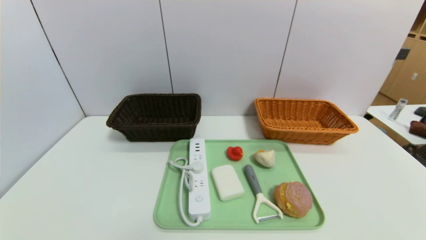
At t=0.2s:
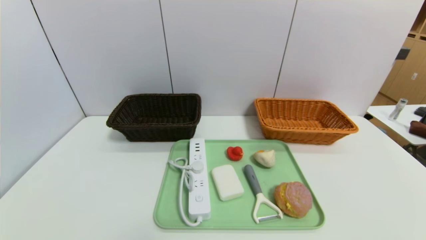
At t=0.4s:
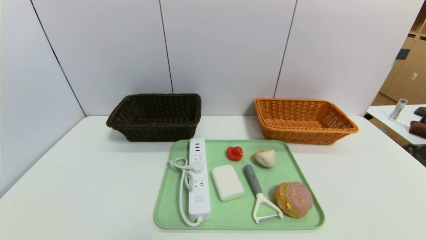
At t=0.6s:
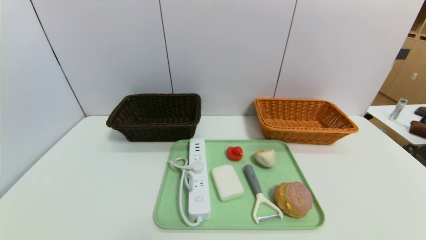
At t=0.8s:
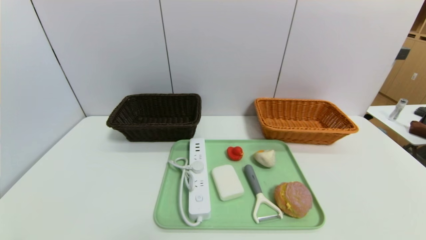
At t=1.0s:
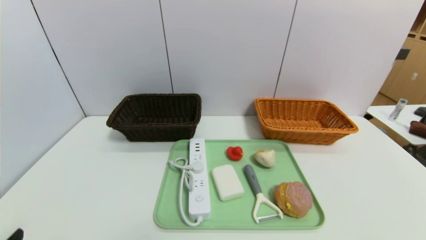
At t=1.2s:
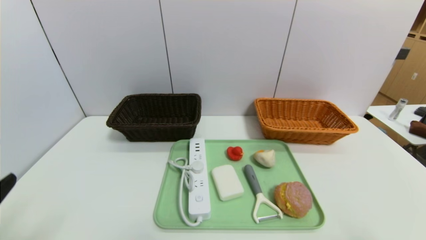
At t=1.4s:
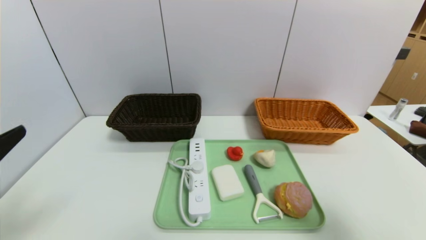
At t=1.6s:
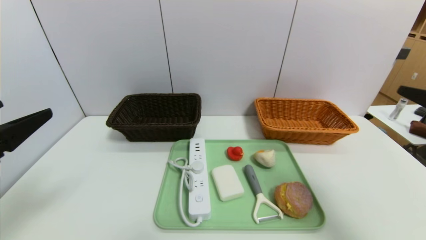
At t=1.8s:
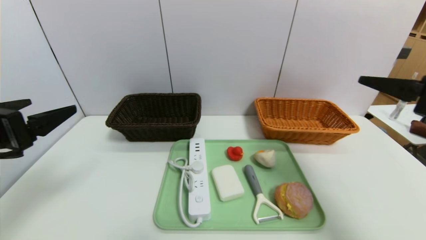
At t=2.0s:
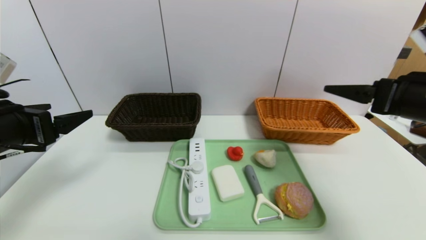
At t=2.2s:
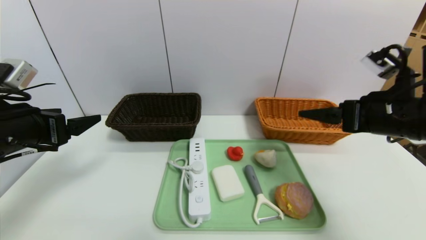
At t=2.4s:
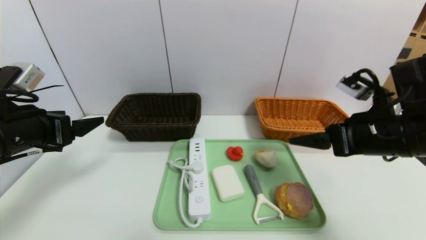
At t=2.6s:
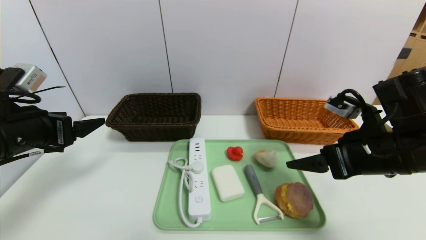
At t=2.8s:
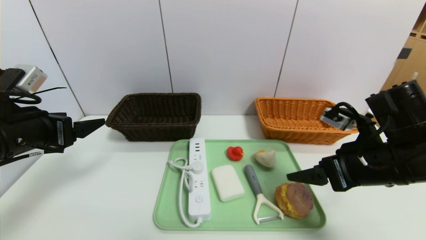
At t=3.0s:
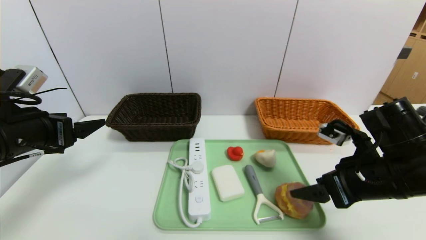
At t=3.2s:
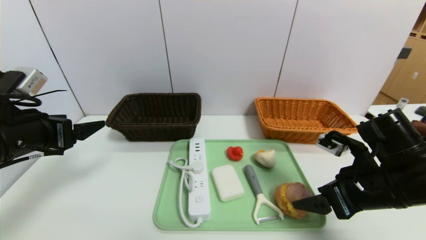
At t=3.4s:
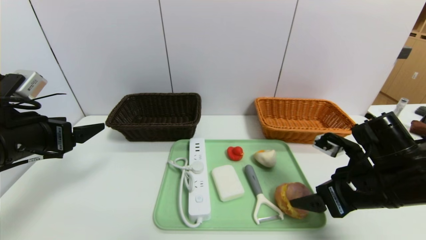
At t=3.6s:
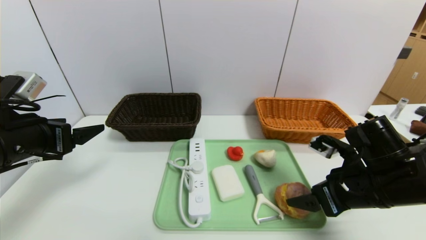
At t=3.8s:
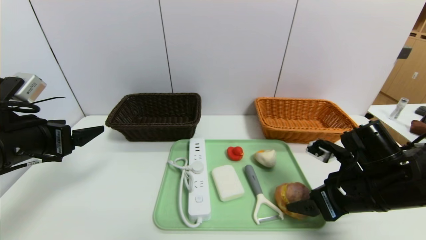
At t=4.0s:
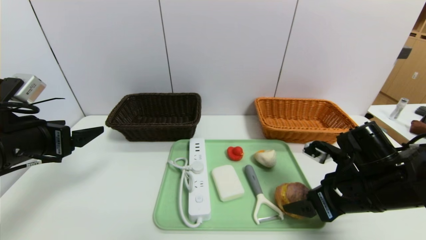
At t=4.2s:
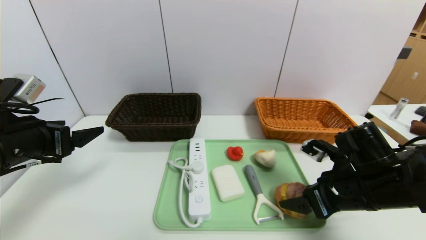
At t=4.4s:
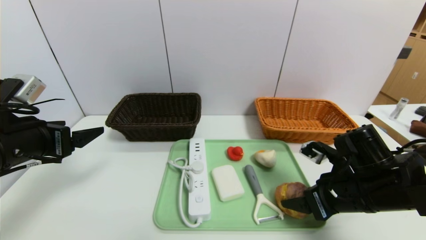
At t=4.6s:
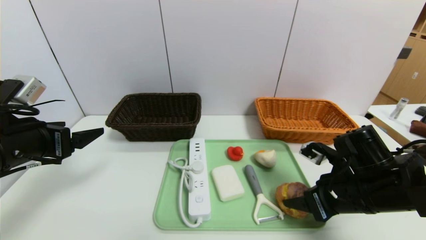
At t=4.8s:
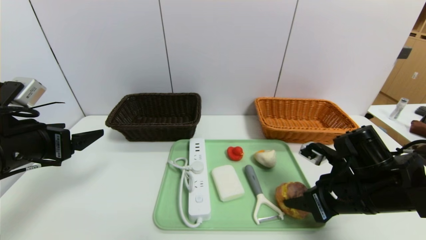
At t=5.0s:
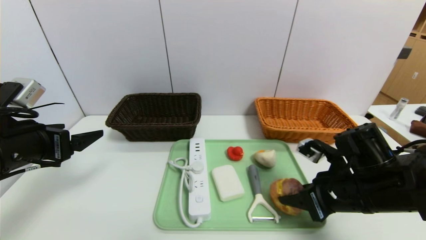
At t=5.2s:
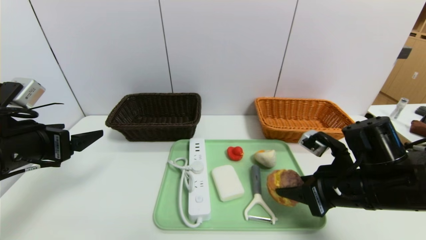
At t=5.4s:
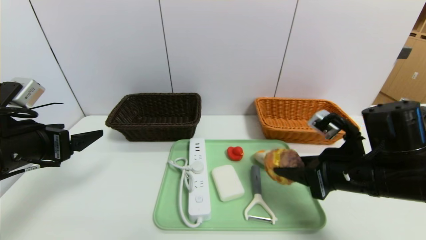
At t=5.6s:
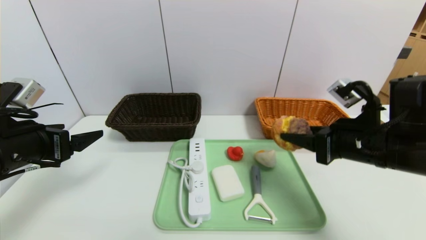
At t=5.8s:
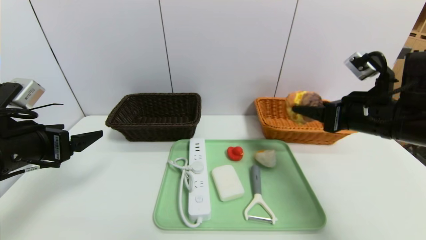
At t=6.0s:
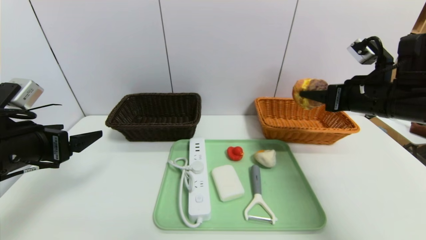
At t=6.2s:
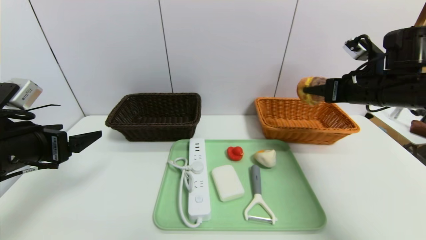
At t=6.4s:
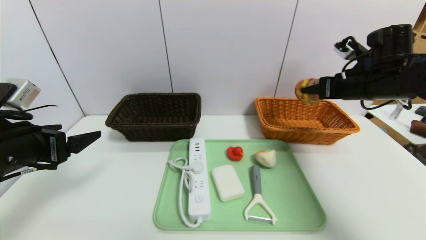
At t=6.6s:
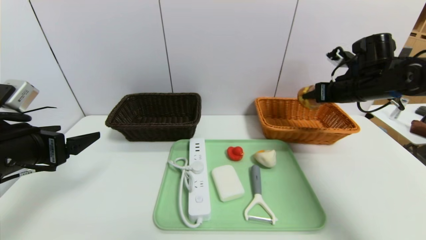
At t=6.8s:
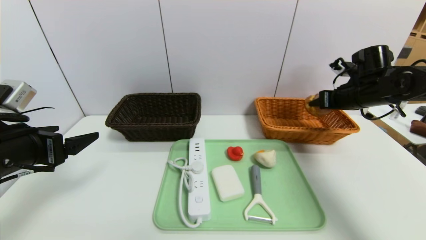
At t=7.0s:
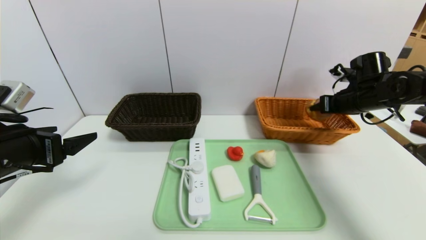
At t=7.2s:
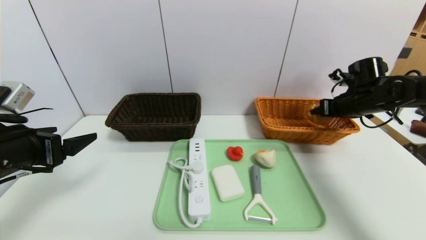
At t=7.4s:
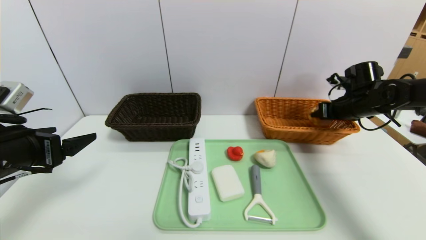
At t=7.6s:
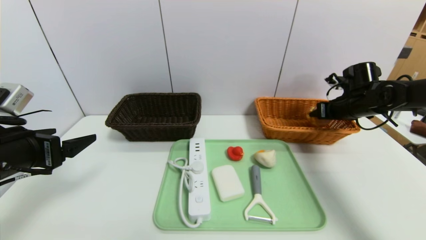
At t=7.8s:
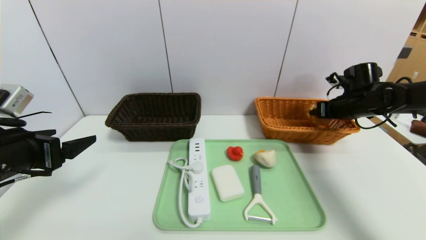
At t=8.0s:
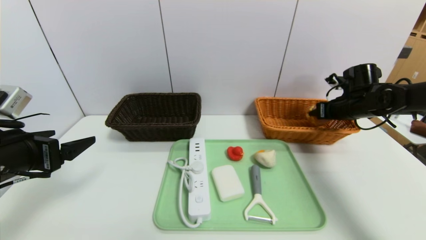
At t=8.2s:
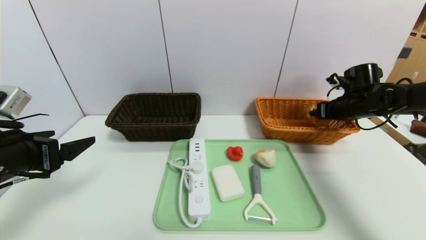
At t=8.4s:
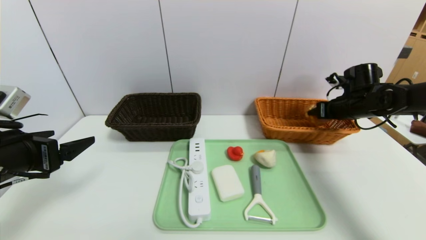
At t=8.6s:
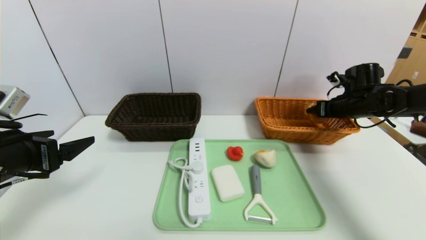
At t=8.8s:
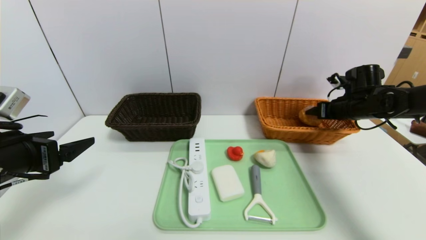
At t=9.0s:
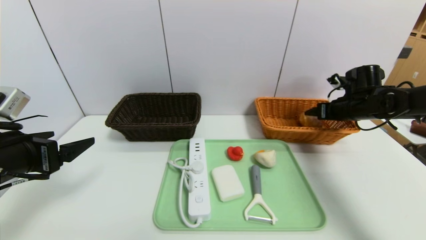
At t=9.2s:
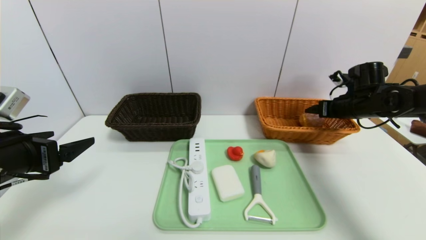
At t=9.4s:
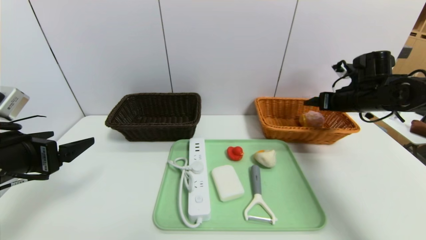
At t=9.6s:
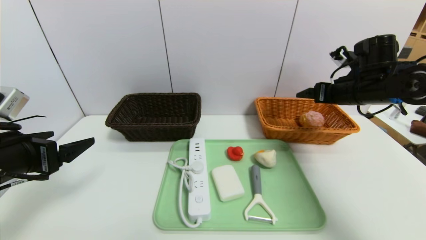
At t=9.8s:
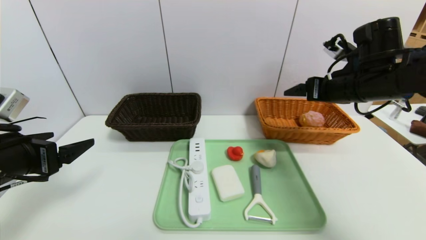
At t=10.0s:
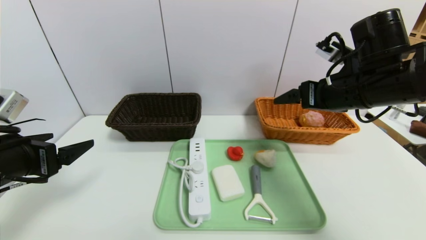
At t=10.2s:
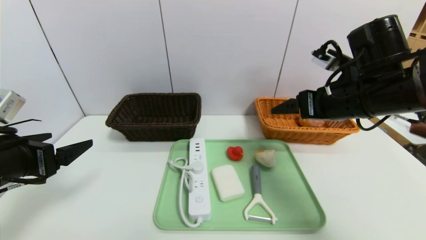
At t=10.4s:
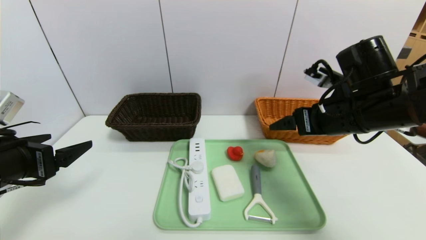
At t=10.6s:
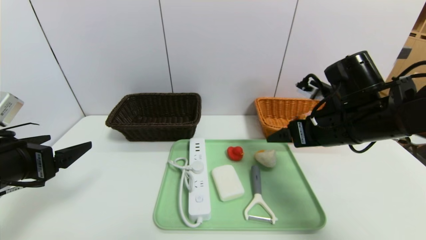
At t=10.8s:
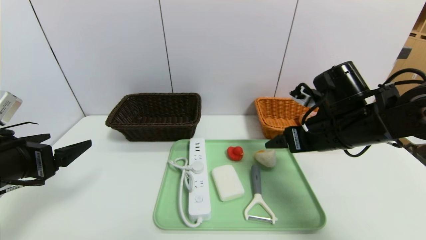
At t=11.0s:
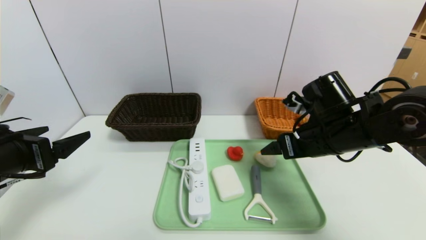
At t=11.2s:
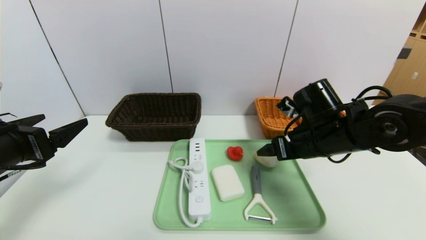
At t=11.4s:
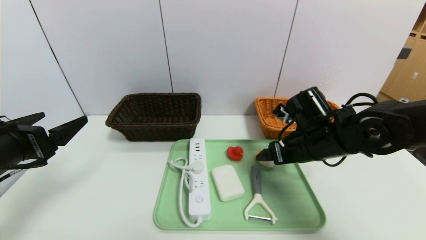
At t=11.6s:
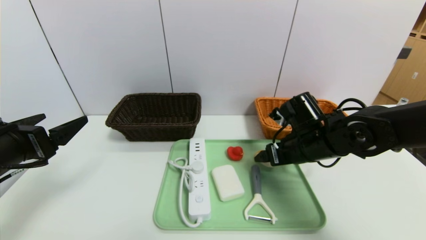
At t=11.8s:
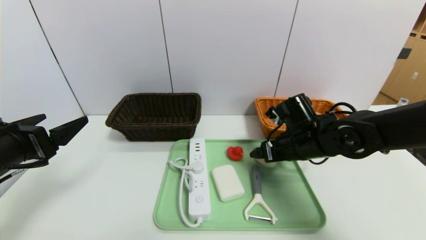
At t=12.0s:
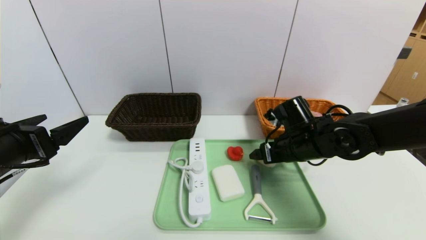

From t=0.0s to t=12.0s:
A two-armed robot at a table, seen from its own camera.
Task of the whole recording: place the food in the right basket with the right gripper, and place the non food items in the left basket with the left gripper.
From t=0.0s to t=1.6s: Both grippers travel together upward and forward, approximately 25 cm.
From t=1.6s to t=3.0s: The right gripper moves downward, to the left and forward, some 15 cm; the left gripper heads forward, covering some 10 cm.
From t=3.0s to t=4.4s: The right gripper changes place by roughly 5 cm.
From t=4.4s to t=6.0s: The right gripper heads upward and forward, covering about 15 cm.
From t=6.0s to t=7.6s: The right gripper goes approximately 15 cm forward, downward and to the right.
From t=7.6s to t=9.0s: The right gripper opens its fingers.
From t=9.0s to t=10.4s: The right gripper heads backward, to the left and upward, covering approximately 20 cm.
From t=10.4s to t=12.0s: The right gripper travels downward and forward by approximately 10 cm.

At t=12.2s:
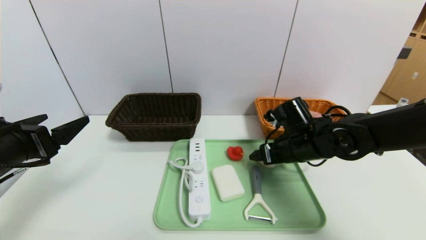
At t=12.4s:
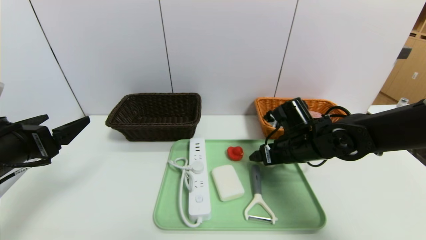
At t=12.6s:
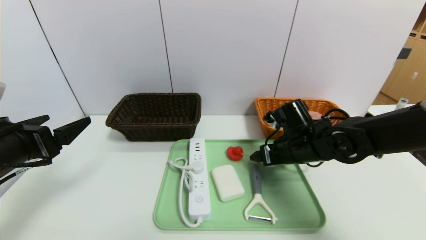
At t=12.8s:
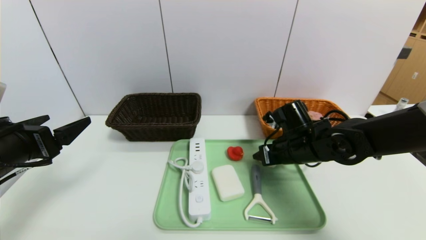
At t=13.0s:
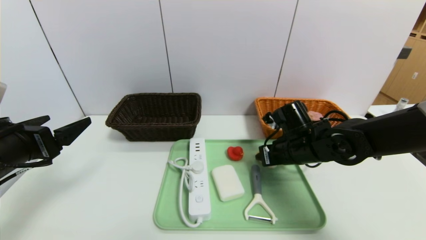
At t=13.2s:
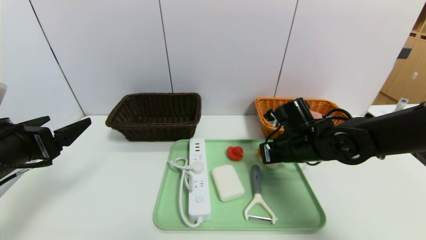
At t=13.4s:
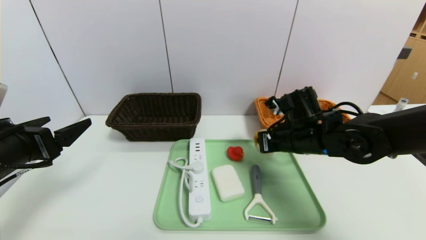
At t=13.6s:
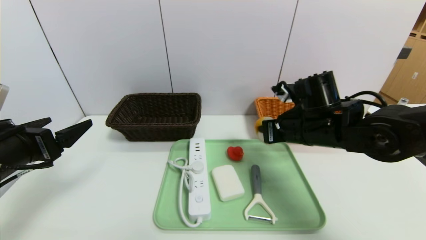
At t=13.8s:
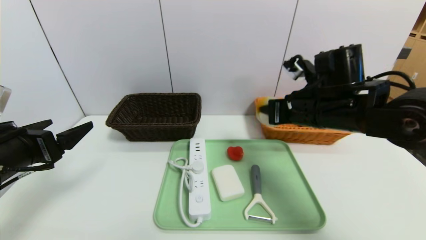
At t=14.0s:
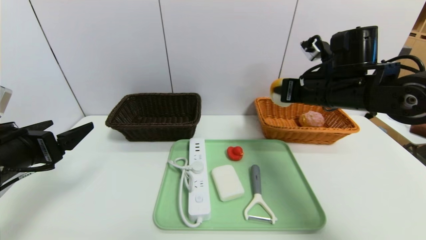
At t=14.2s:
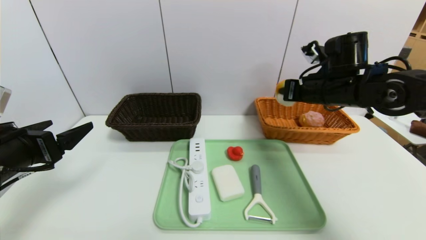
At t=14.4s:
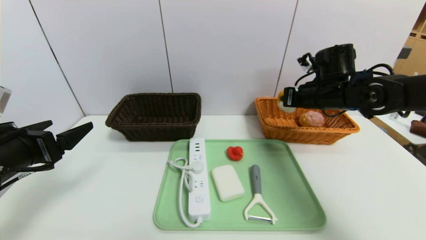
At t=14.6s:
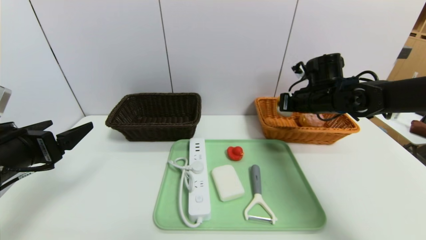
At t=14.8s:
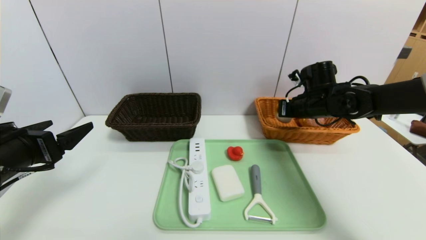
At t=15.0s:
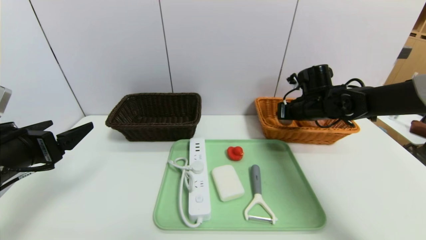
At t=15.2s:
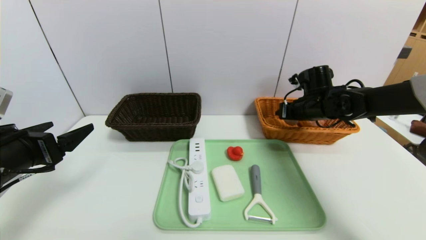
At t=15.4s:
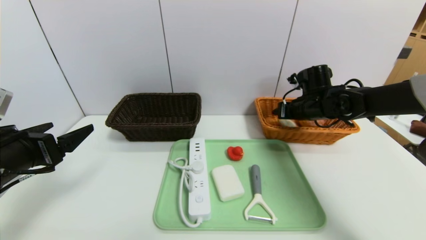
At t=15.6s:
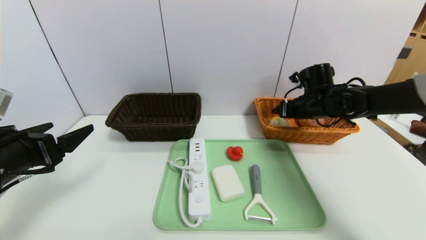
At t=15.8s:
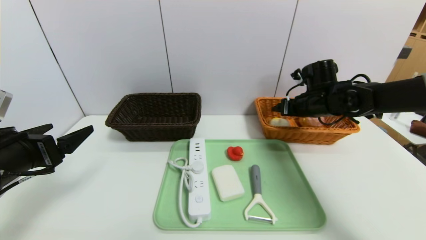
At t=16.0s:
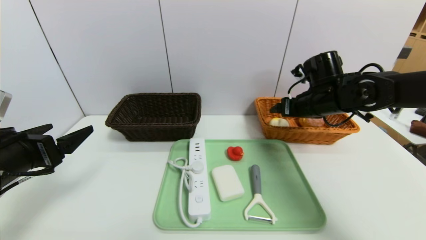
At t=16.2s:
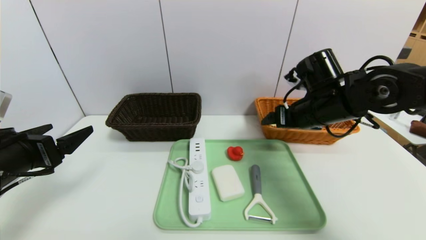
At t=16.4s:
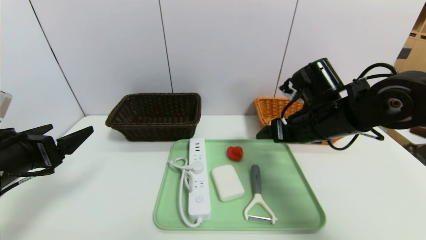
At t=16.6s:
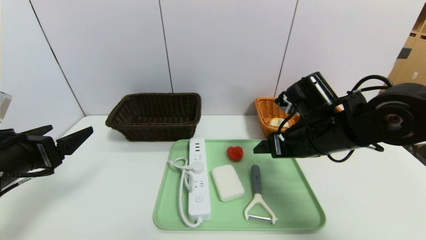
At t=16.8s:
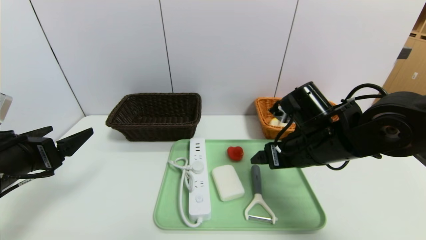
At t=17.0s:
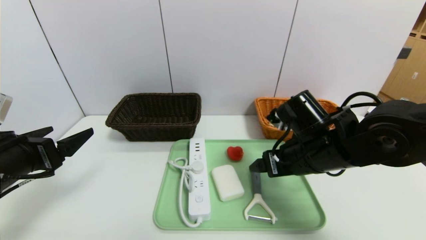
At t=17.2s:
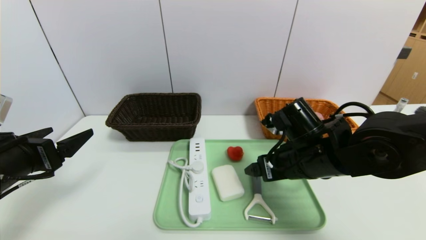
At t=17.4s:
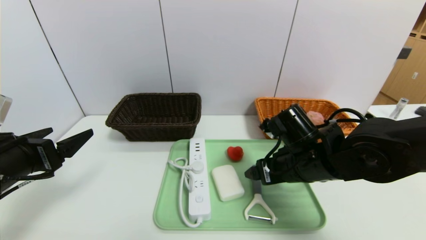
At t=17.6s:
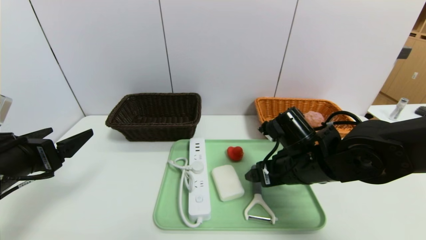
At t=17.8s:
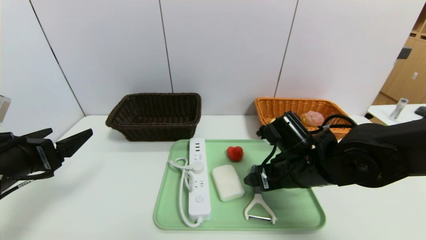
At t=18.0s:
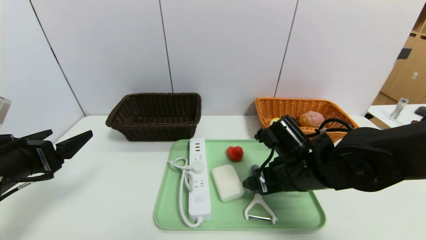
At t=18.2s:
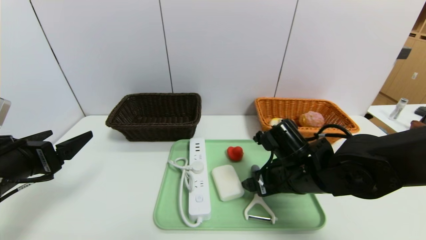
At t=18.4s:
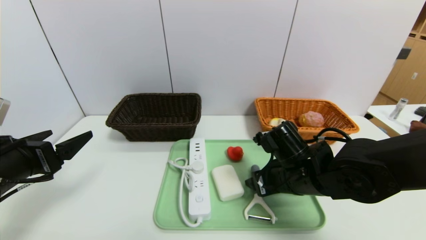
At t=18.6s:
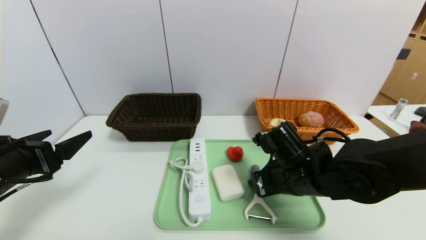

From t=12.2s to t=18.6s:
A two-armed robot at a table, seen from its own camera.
Task of the whole recording: place the food in the right basket with the right gripper, and place the non food items in the left basket with the left gripper.
Step, from t=12.2s to t=16.2s: Grasp the round bread and put it in the right basket.
From t=12.2s to t=13.8s: The right gripper is displaced upward by roughly 10 cm, and closes its fingers.
From t=13.8s to t=15.4s: The right gripper heads forward, downward and to the right, covering some 15 cm, and opens.
From t=15.4s to t=17.0s: The right gripper is displaced backward and to the left by roughly 20 cm.
From t=17.0s to t=18.6s: The right gripper heads downward, covering about 5 cm, and closes its fingers.
